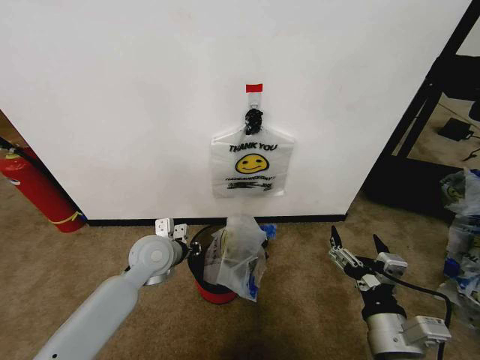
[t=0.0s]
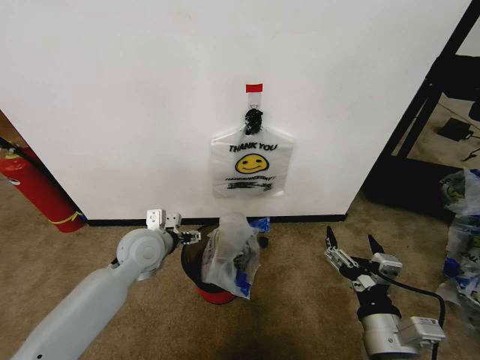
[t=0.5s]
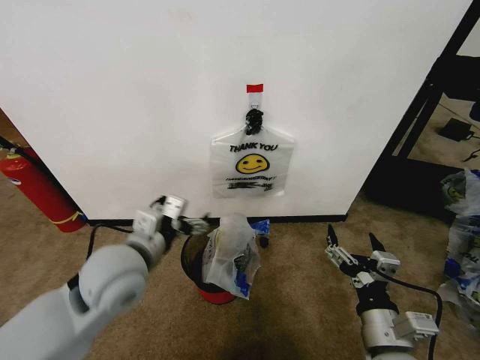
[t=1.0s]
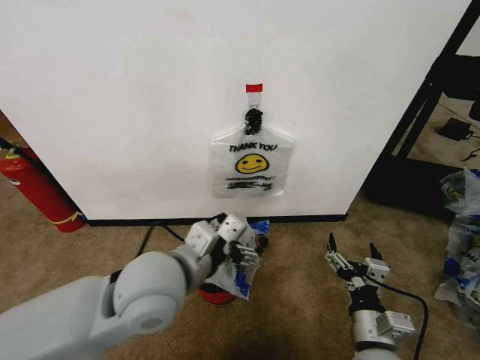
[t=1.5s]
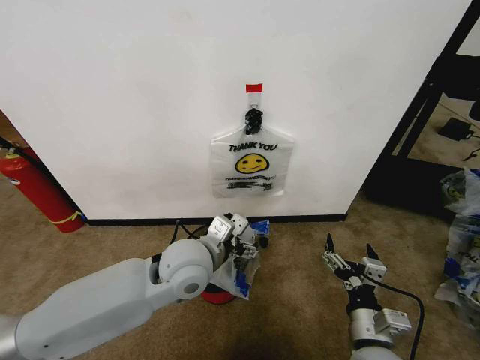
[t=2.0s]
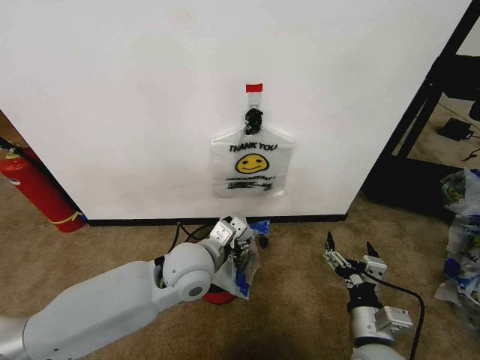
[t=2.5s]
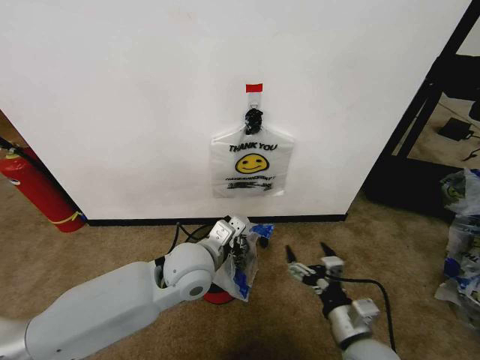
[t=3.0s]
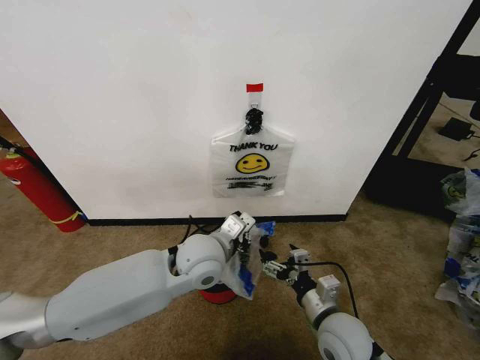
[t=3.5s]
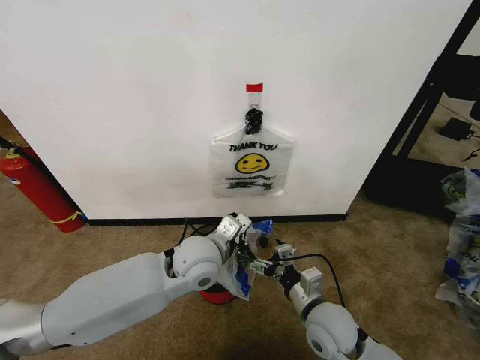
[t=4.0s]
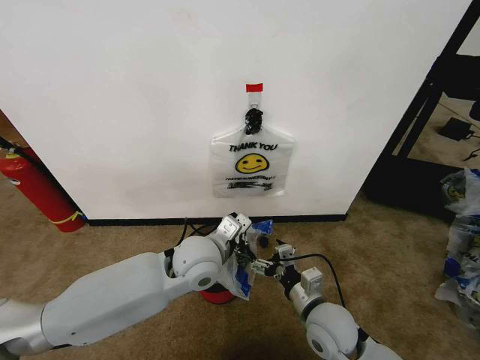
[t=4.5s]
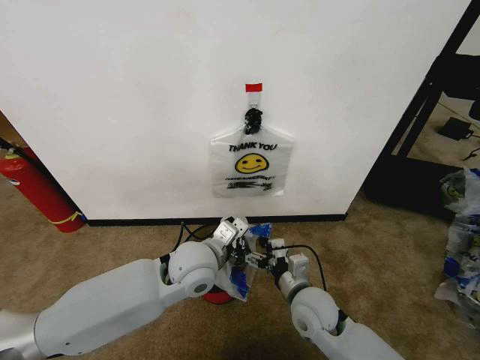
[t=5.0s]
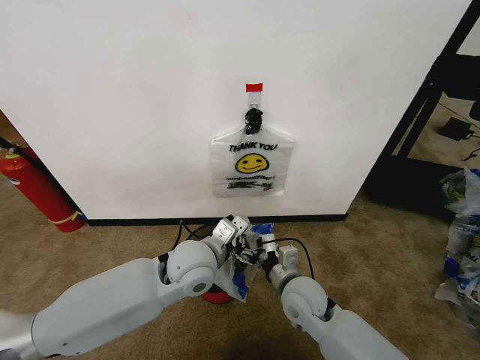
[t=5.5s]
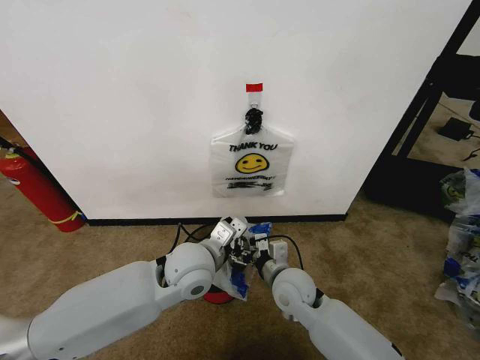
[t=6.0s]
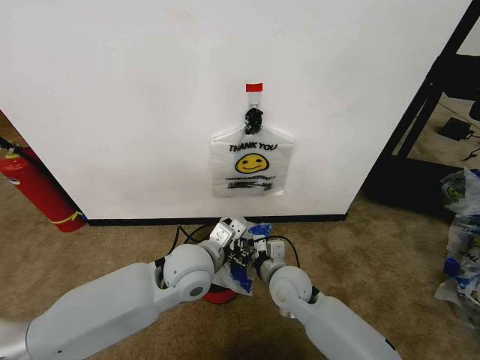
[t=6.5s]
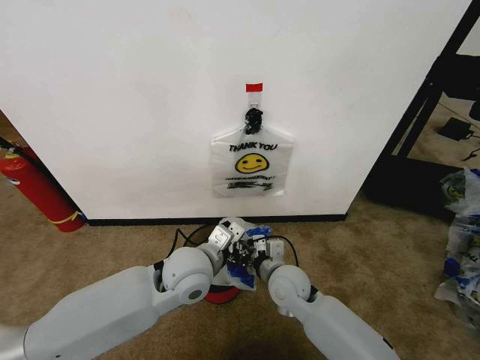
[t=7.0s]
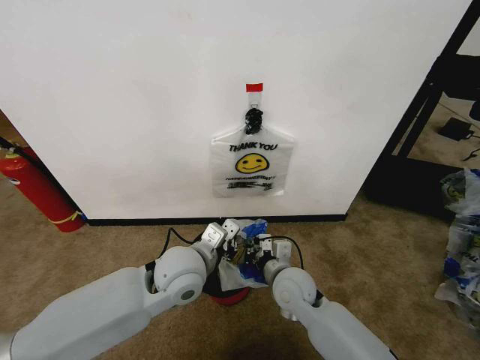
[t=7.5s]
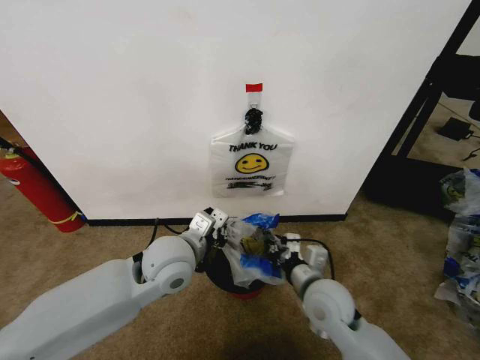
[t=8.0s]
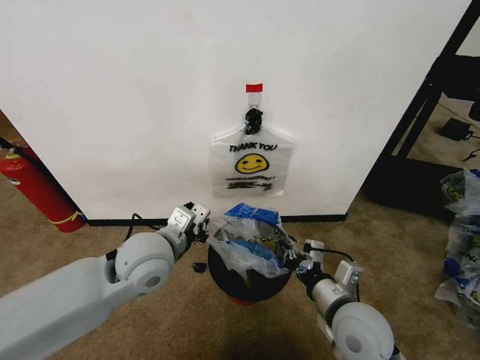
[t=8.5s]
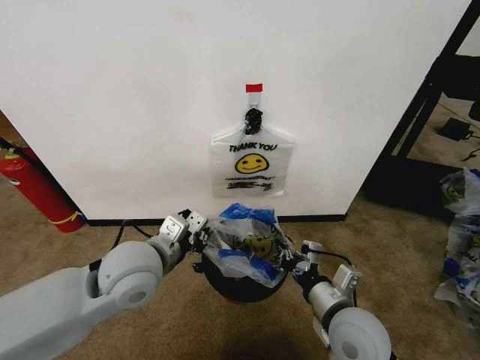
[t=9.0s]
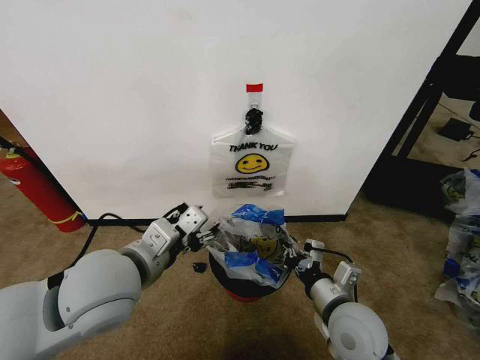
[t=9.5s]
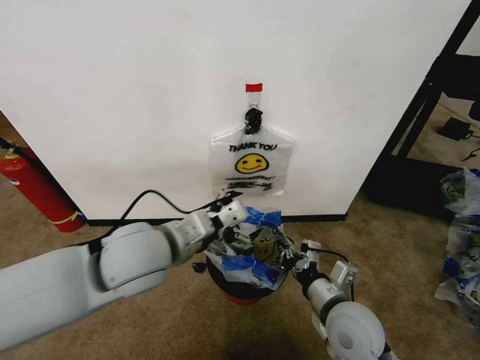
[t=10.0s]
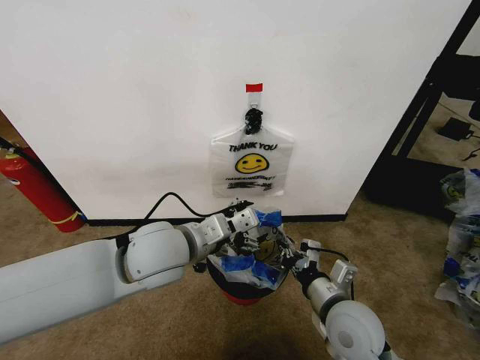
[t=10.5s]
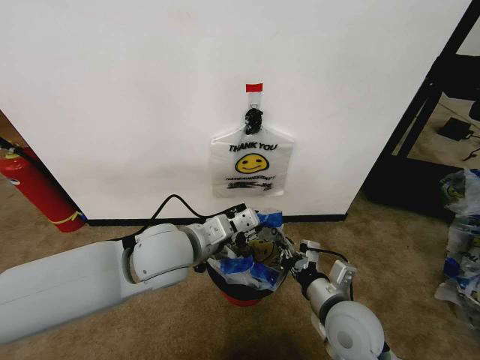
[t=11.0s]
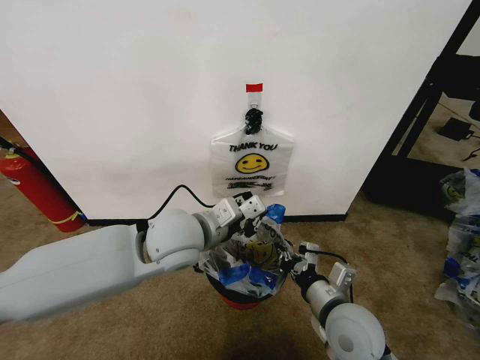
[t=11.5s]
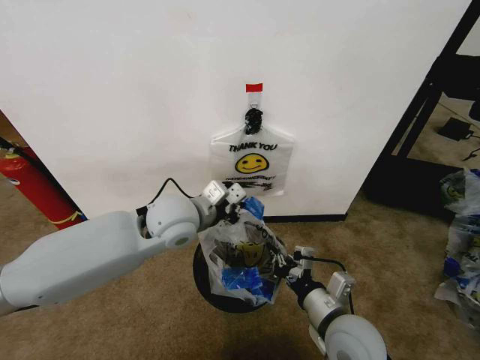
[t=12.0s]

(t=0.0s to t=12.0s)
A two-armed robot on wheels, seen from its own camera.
Task of the whole recording: Pick up the garbage bag from the wall and place it over the trash bin.
t=0.0s - t=2.0s: The right gripper goes approximately 5 cm downward, while the left gripper travels to the right, upward and backward by roughly 15 cm, and opens.
t=2.0s - t=4.0s: The left gripper closes up; the right gripper travels forward and to the left by roughly 10 cm.
t=4.0s - t=6.0s: The right gripper is displaced forward and to the left by some 10 cm.
t=6.0s - t=8.0s: The right gripper is displaced to the right by approximately 5 cm, and closes its fingers.
t=8.0s - t=10.0s: The left gripper goes roughly 10 cm upward, and opens. Meanwhile the right gripper changes place by about 5 cm.
t=10.0s - t=12.0s: The left gripper travels forward by roughly 10 cm, and closes its fingers.

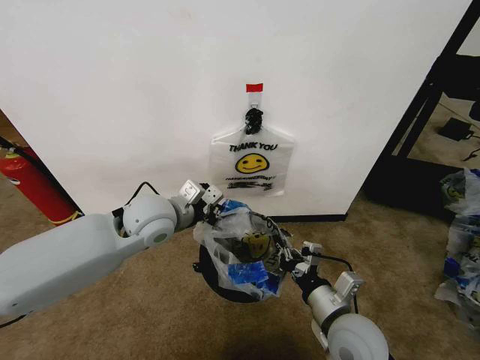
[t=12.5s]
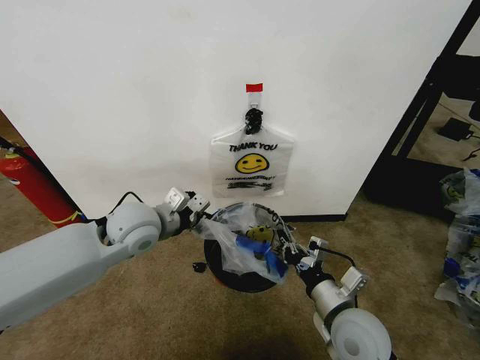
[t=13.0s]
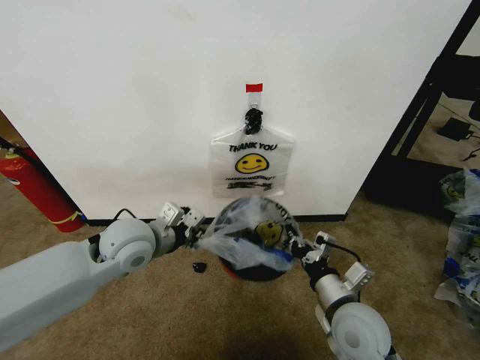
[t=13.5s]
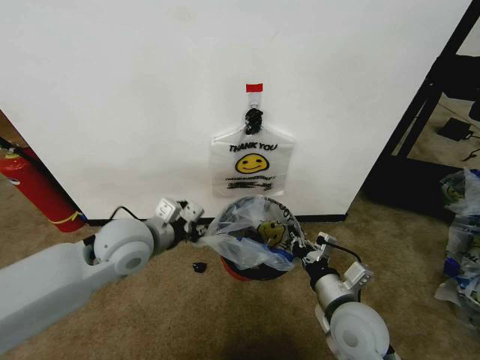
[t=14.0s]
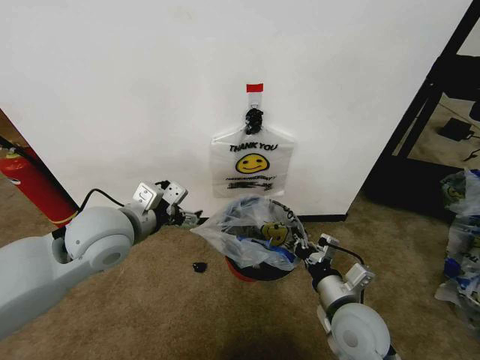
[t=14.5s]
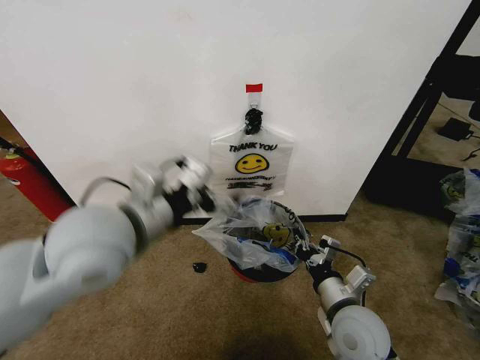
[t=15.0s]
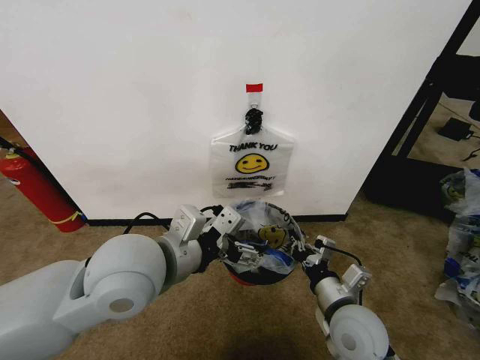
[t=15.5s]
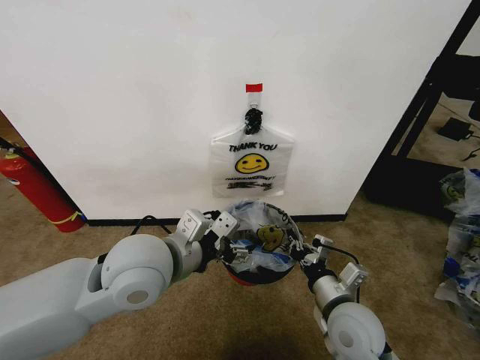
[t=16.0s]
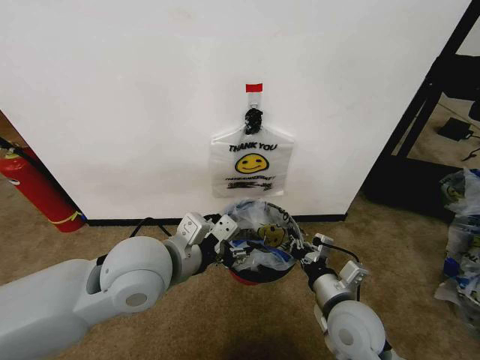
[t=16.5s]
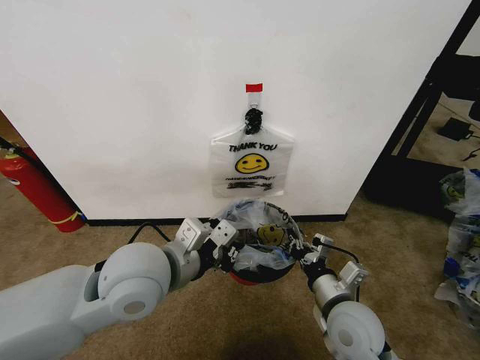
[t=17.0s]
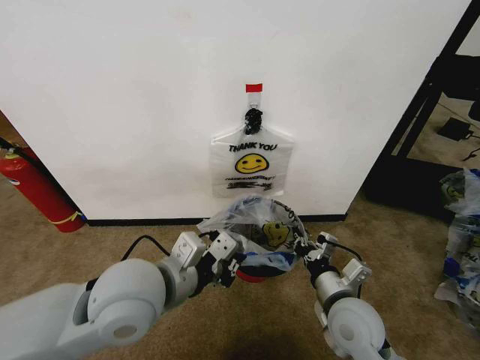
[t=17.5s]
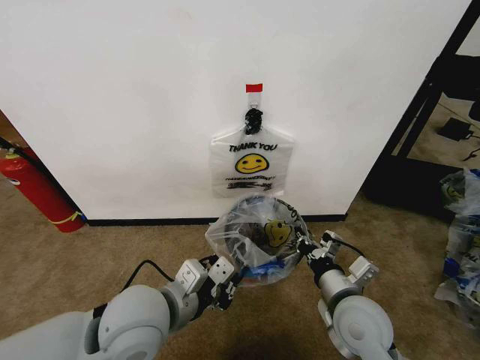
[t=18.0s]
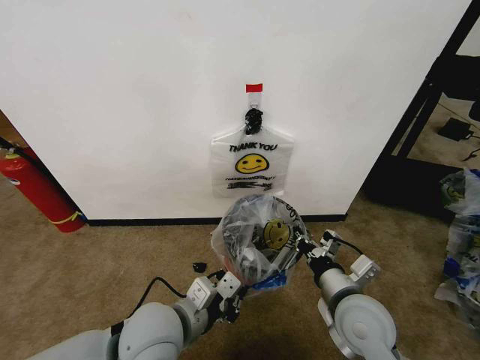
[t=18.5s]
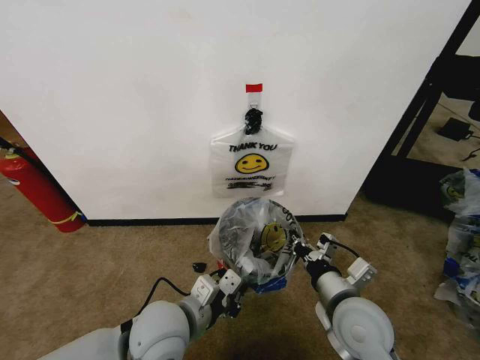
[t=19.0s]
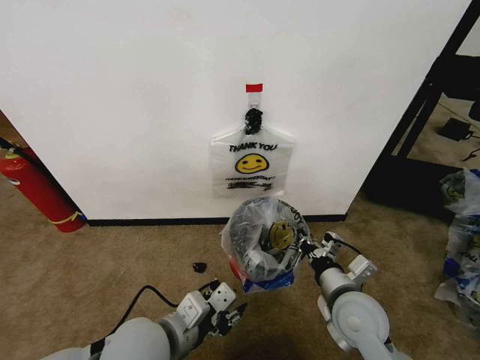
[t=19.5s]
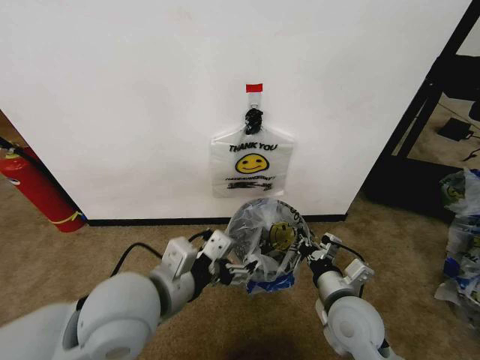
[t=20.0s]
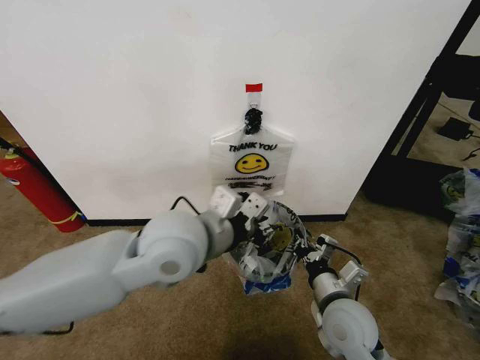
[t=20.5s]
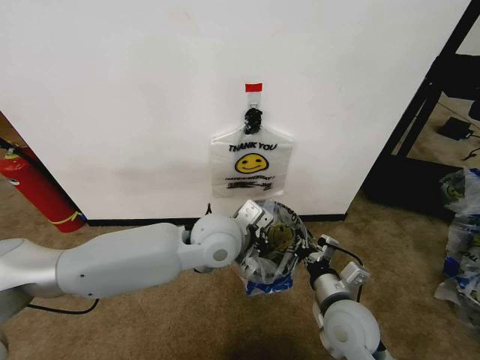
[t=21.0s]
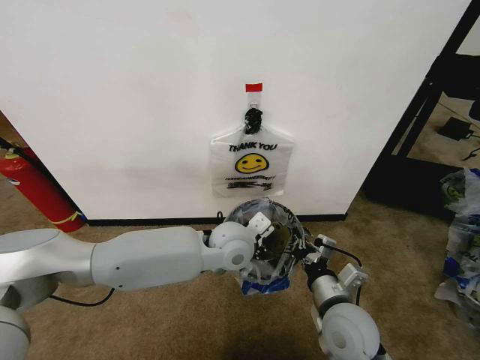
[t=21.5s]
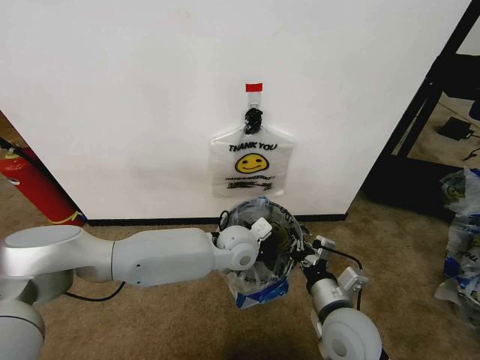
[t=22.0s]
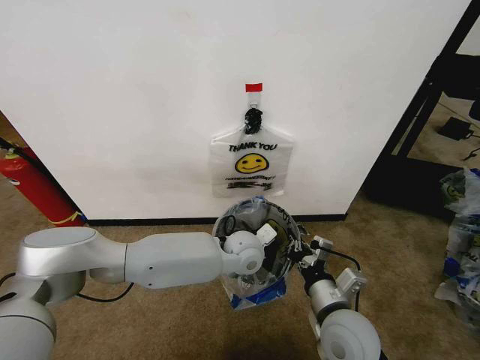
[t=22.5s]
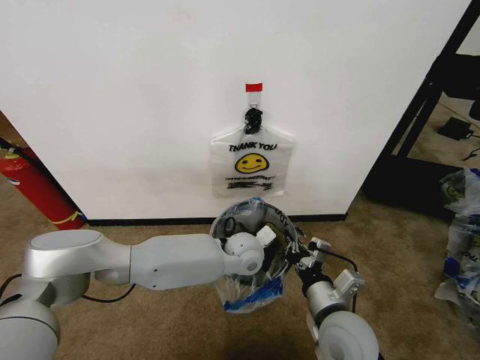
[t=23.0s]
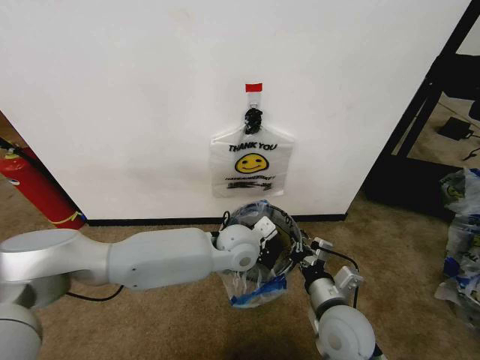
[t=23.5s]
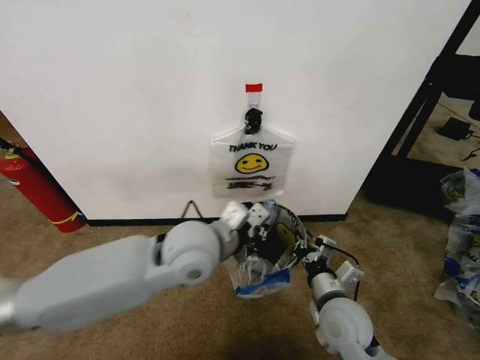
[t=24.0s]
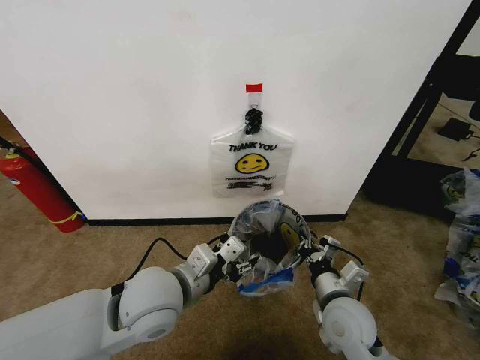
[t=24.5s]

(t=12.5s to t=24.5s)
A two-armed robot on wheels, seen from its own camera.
Task of the whole recording: Pick up the garbage bag from the wall and place it over the trash bin.
t=12.5s - t=14.5s: The left gripper goes some 10 cm backward and to the left, and opens its fingers.
t=14.5s - t=16.5s: The left gripper travels to the right and backward by about 10 cm, and closes up.
t=16.5s - t=18.5s: The left gripper moves downward and backward, some 10 cm, and closes its fingers.
t=18.5s - t=20.5s: The left gripper travels upward and forward by about 15 cm, and opens, then closes once more.
t=20.5s - t=22.5s: The left gripper is displaced downward, to the right and forward by about 25 cm.
t=22.5s - t=24.5s: The left gripper moves to the left, backward and upward, some 25 cm, and opens.

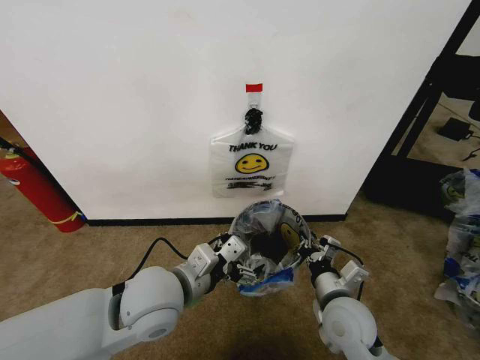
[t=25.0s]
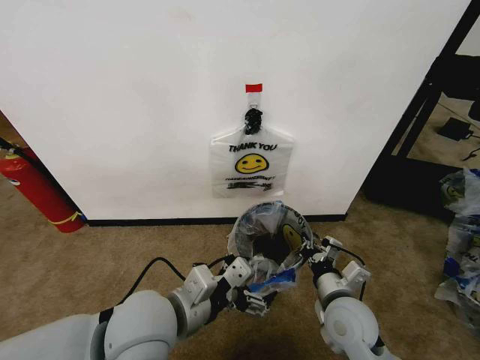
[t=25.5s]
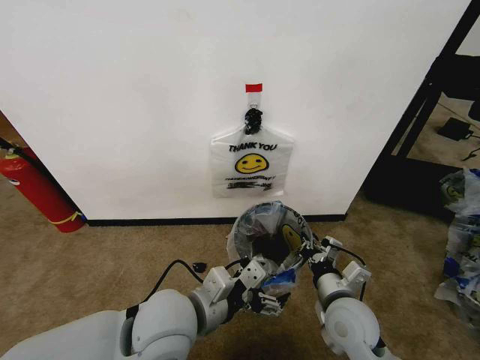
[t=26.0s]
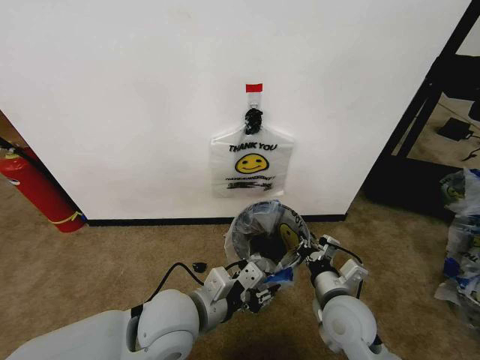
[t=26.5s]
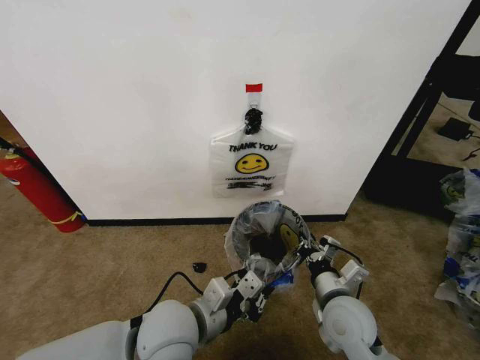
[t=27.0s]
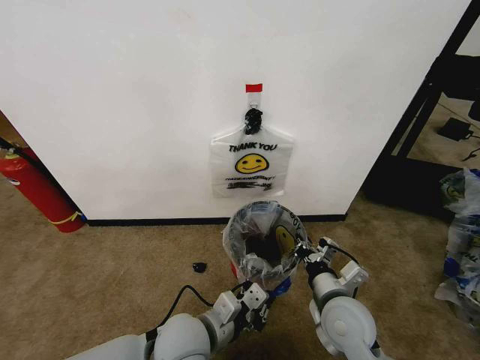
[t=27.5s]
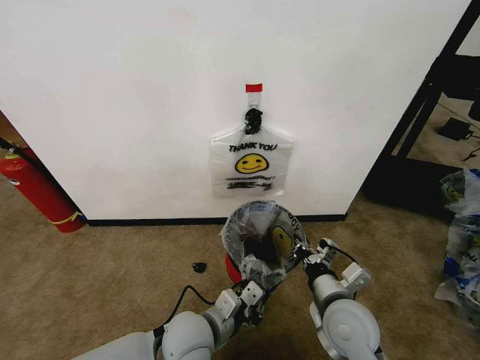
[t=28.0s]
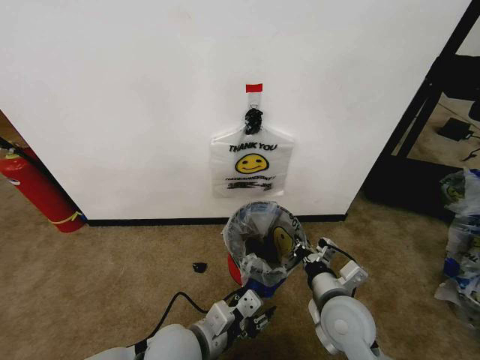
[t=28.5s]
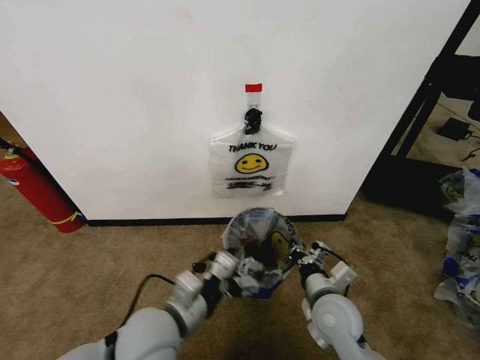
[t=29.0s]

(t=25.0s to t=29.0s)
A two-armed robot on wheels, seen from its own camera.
Task of the whole recording: Pick up the garbage bag from the wall and place it over the trash bin.
t=25.0s - t=27.0s: The left gripper changes place by approximately 5 cm, and closes.
t=27.0s - t=29.0s: The left gripper reaches some 10 cm downward, then returns, and opens.
